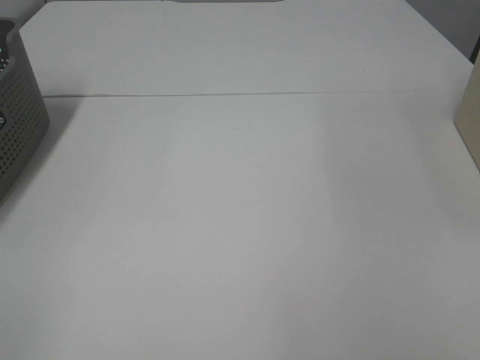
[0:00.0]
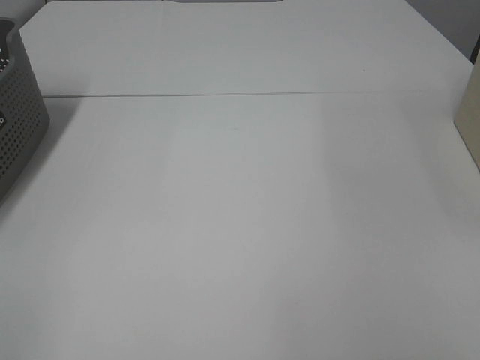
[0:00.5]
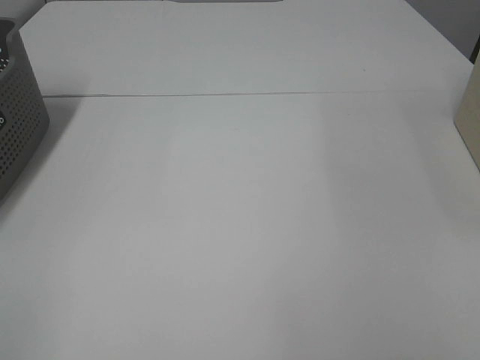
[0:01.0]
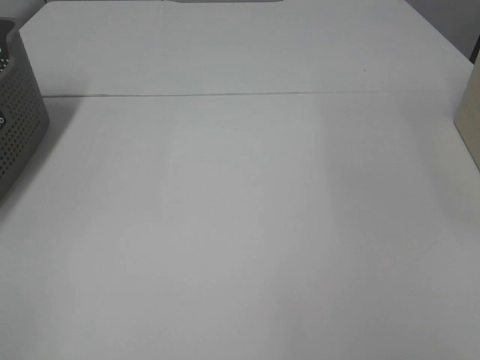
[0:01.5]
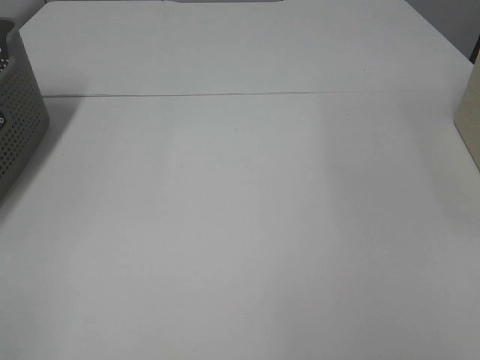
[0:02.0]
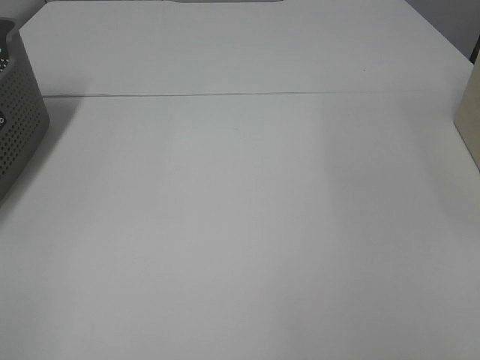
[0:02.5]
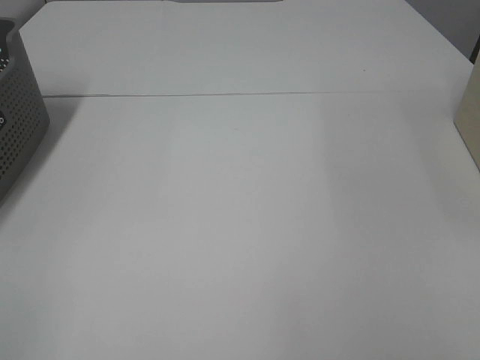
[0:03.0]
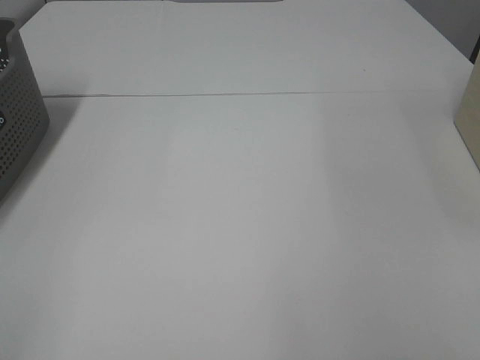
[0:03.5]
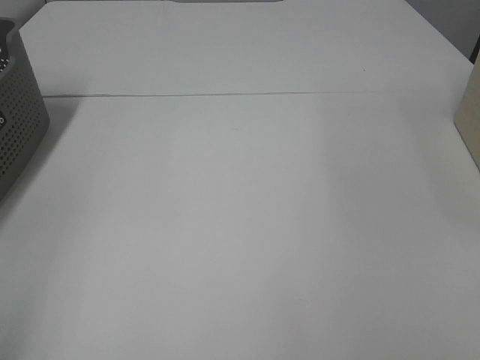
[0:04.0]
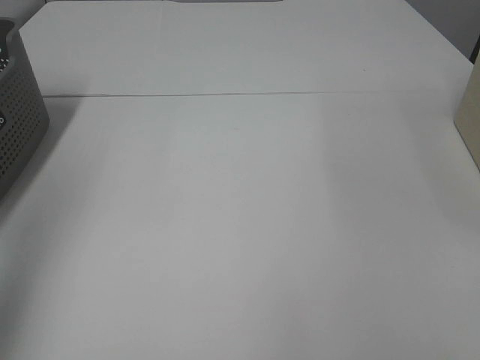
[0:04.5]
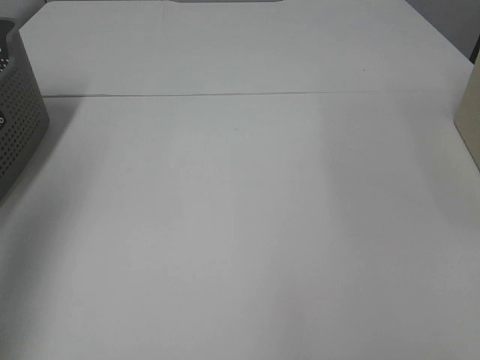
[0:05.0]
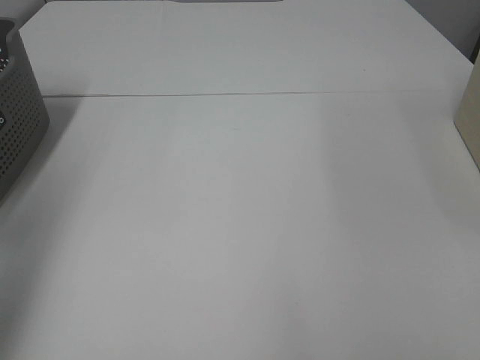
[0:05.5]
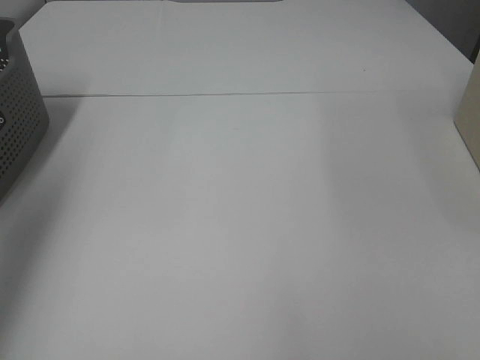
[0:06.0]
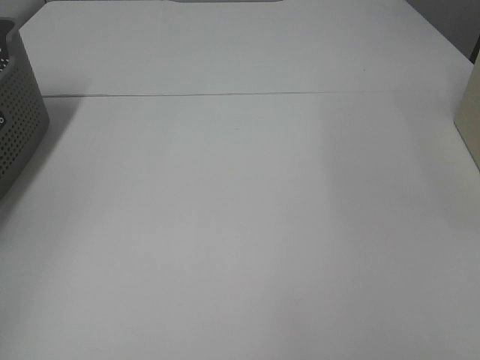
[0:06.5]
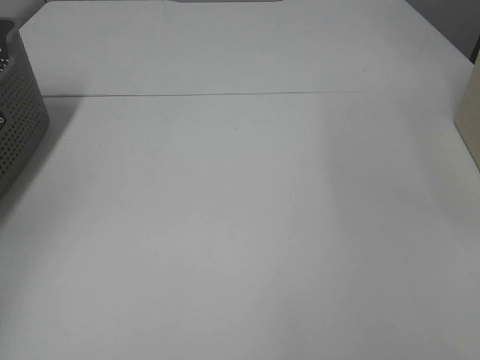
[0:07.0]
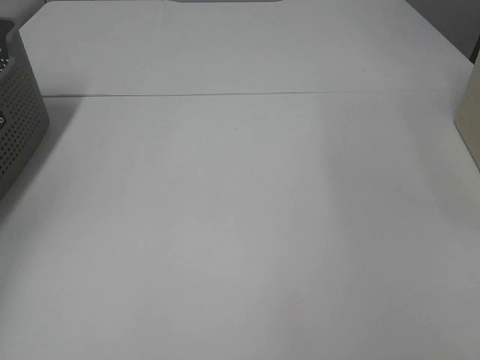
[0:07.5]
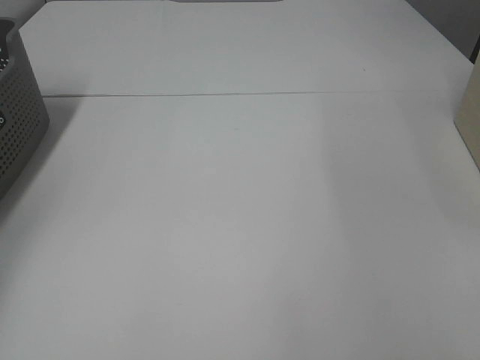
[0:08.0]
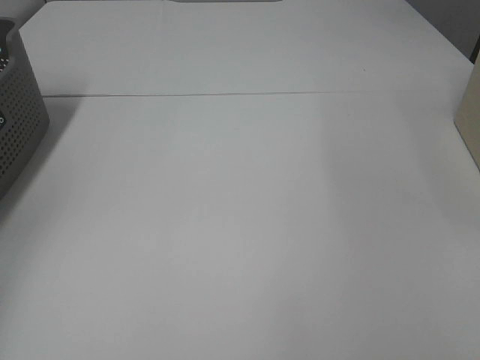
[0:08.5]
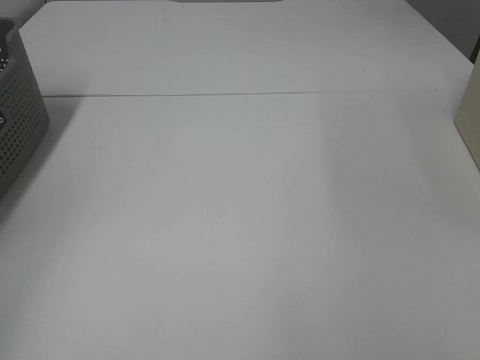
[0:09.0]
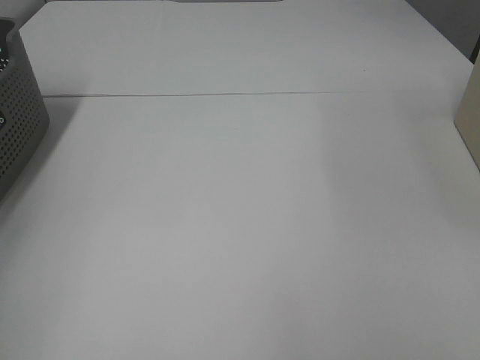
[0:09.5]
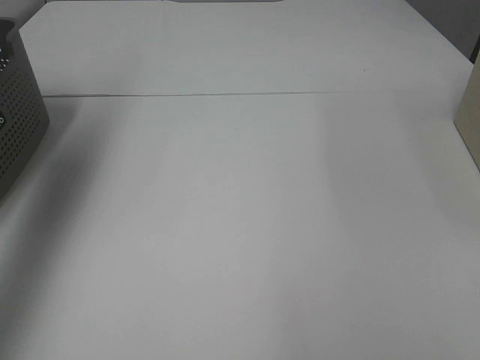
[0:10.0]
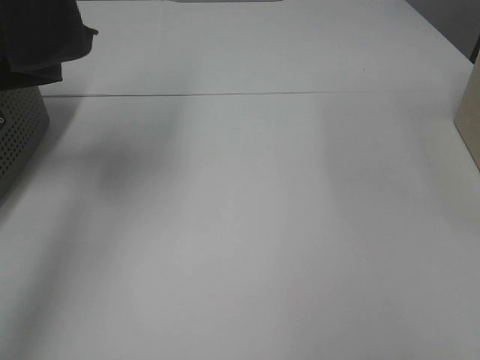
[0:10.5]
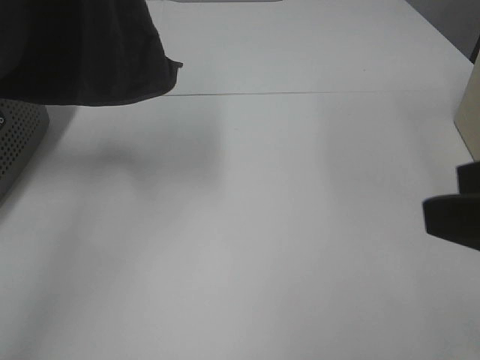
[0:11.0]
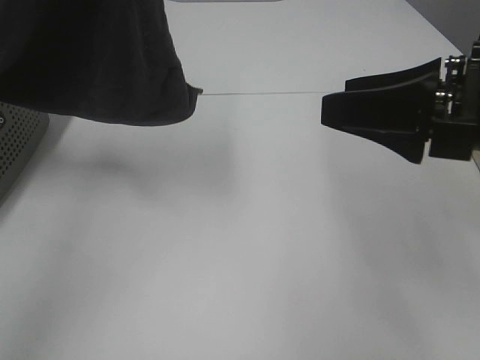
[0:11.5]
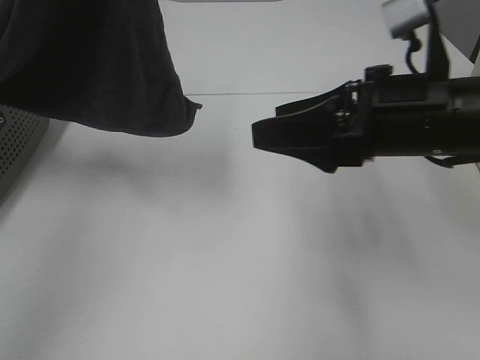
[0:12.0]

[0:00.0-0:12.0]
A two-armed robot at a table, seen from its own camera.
Task of the whole recording: Remove the towel and place it.
0:00.0 to 0:02.0: Both grippers stay about where they are.
0:04.0 to 0:06.0: The left gripper goes some 25 cm forward.
0:06.0 to 0:08.0: The left gripper is displaced downward, to the left and forward by about 20 cm.
0:08.0 to 0:10.0: The left gripper shifts about 40 cm upward and to the right, and closes.
0:10.0 to 0:12.0: The right gripper heads forward and to the left, covering about 25 cm. Meanwhile the left gripper is displaced to the right and downward by approximately 15 cm.

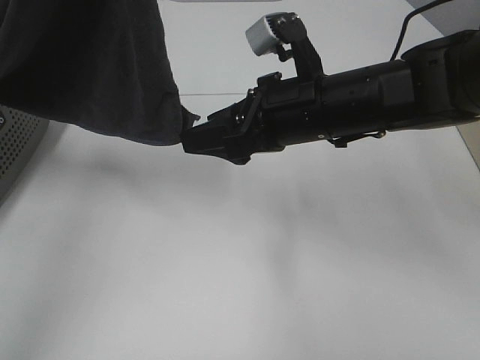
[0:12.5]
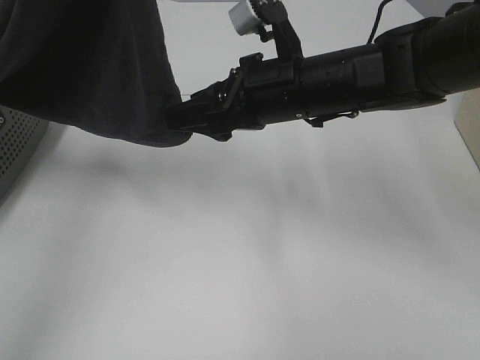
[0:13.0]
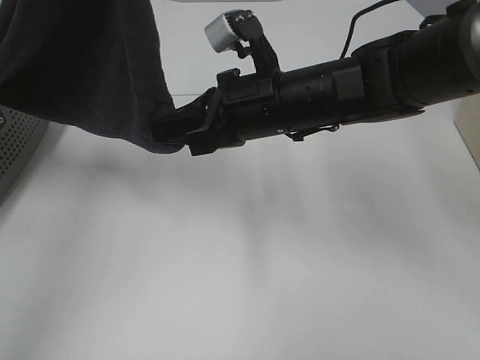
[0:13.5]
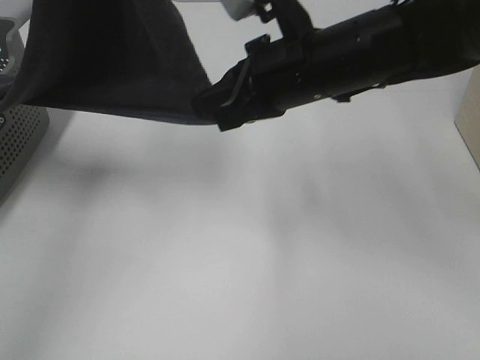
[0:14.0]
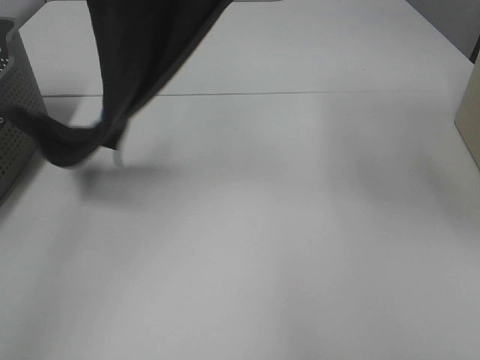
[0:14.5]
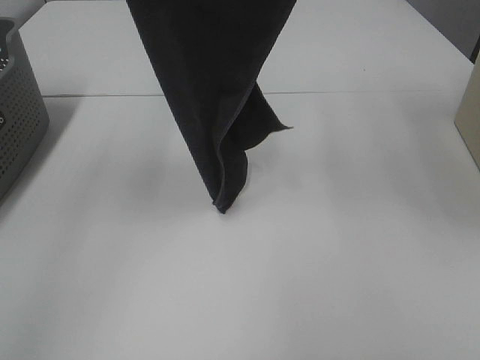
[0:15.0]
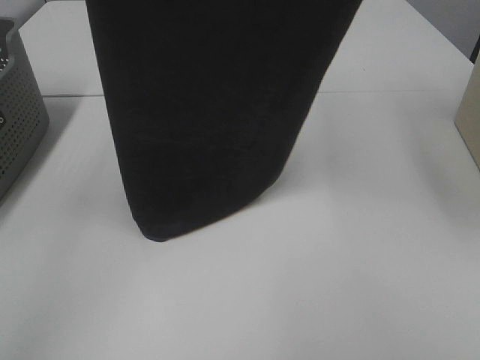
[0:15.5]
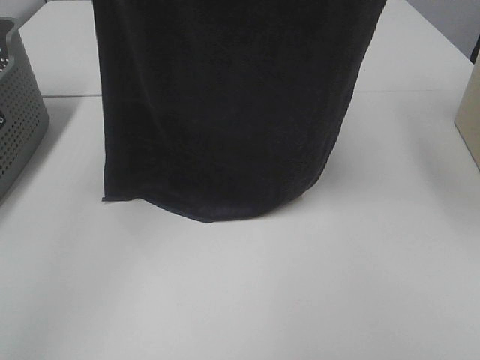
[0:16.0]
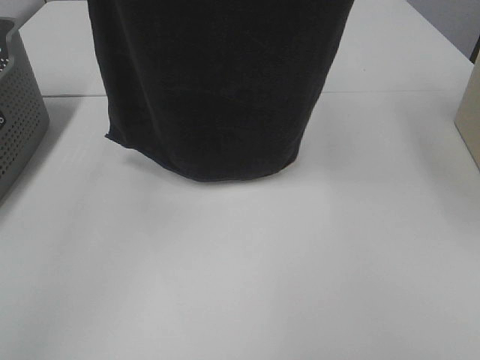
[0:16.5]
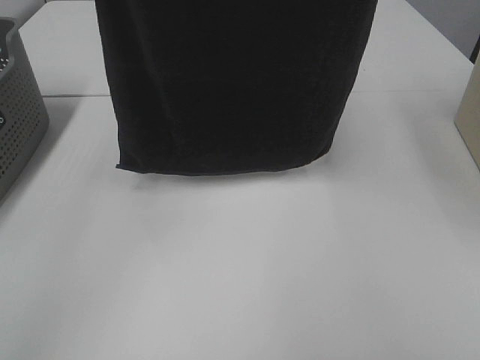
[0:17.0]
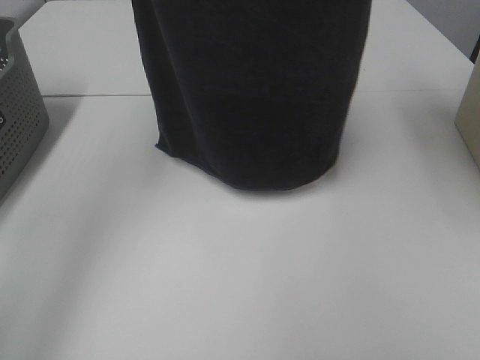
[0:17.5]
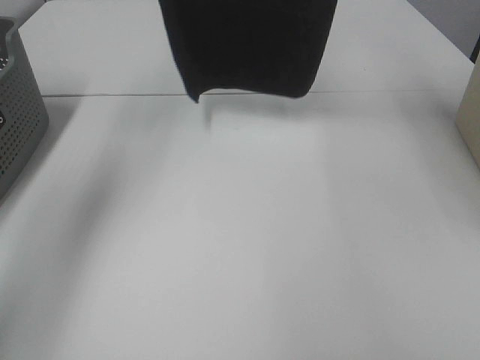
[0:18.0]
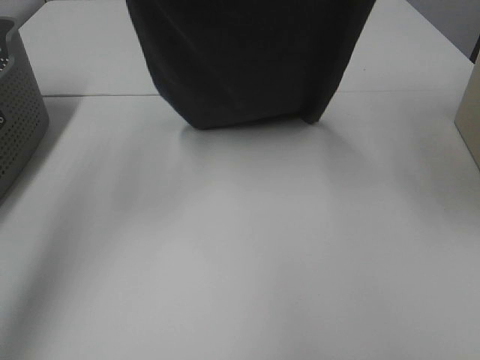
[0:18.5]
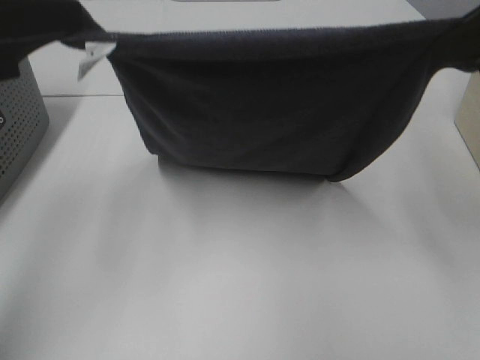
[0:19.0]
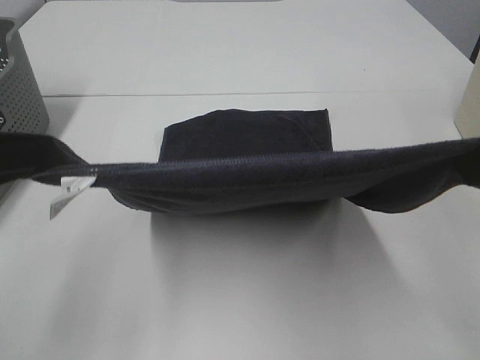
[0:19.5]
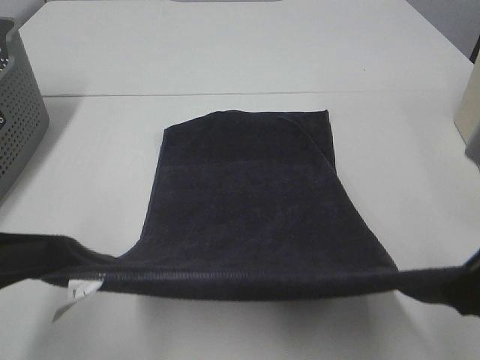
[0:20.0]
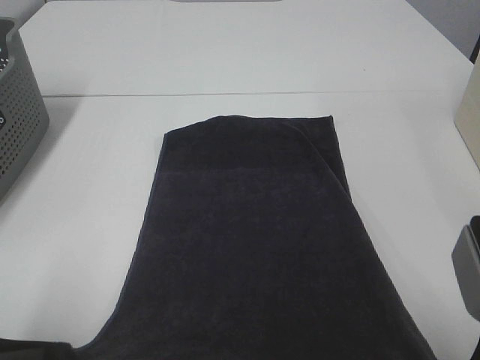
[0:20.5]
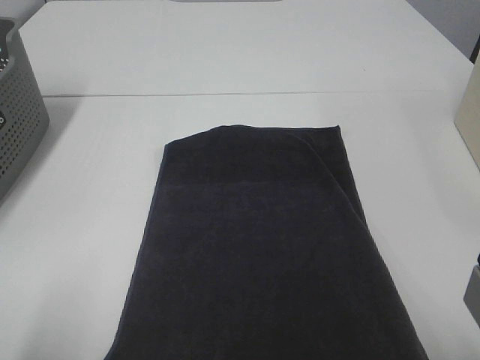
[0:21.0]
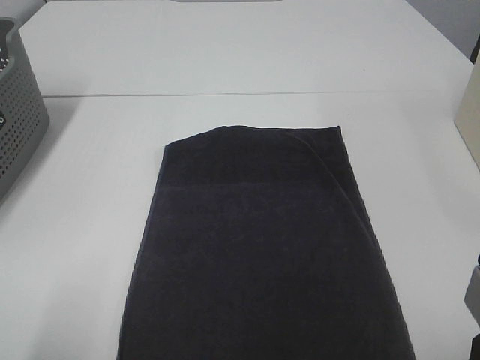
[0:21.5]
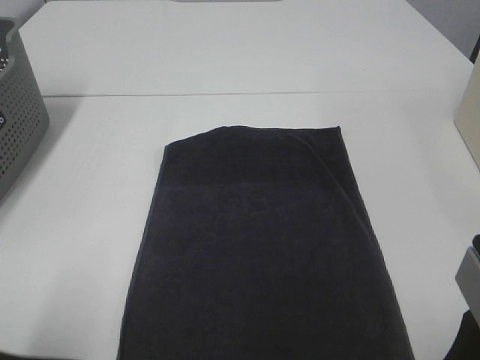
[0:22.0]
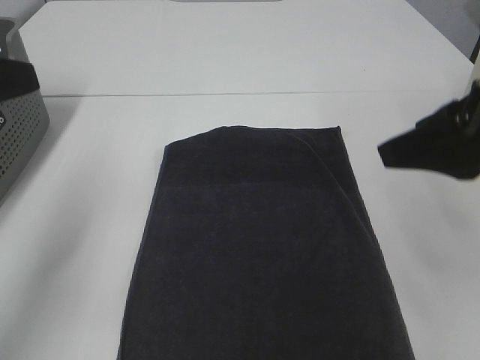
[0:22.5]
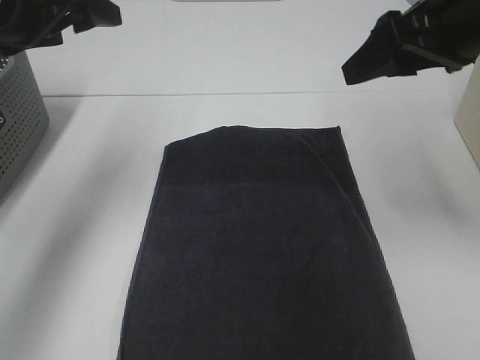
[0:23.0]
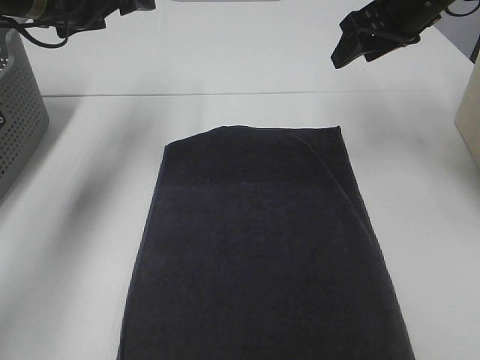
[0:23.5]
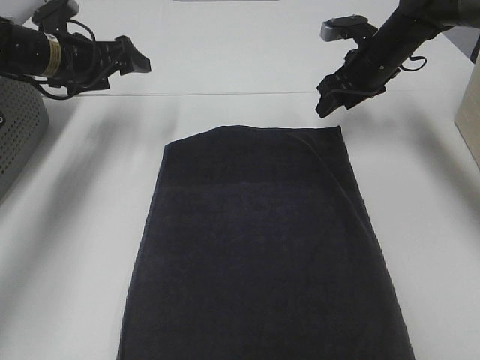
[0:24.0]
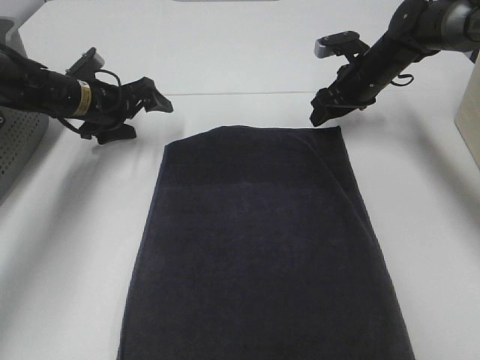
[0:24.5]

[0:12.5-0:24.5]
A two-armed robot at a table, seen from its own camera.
Task of the whole recording: Remove the towel and place it.
Step, 0:13.0 to 0:17.0: Left hand: spread the grey towel flat on the table.
Step, 0:13.0 to 0:17.0: Right hand: spread the grey towel flat on the table.
0:12.5 to 0:14.5: The left gripper shifts some 5 cm upward. The right gripper heads upward, covering approximately 20 cm, and closes.
0:14.5 to 0:16.5: The right gripper goes approximately 15 cm upward.
0:16.5 to 0:18.5: The left gripper goes approximately 15 cm downward; the right gripper moves downward, about 10 cm.
0:18.5 to 0:20.5: The right gripper travels downward and backward by roughly 35 cm. The left gripper moves backward and downward, roughly 30 cm.
0:20.5 to 0:22.5: The grippers both shift upward and forward by about 15 cm. The left gripper opens; the right gripper opens up.
0:22.5 to 0:24.5: The two grippers go roughly 35 cm forward and downward.

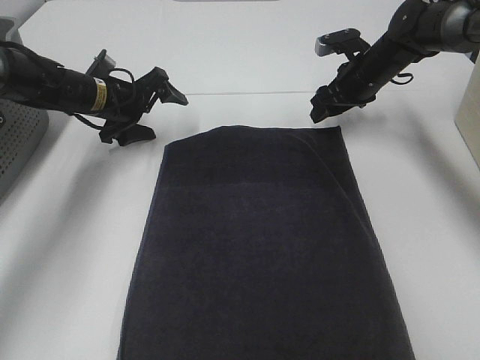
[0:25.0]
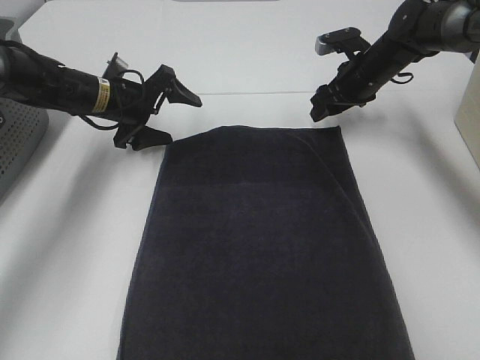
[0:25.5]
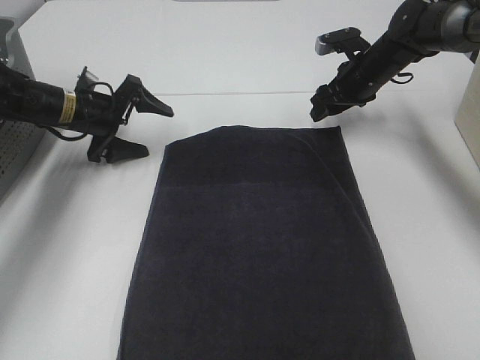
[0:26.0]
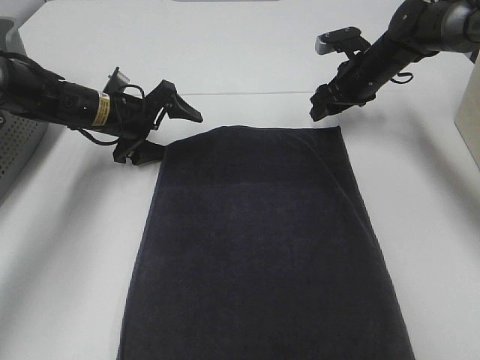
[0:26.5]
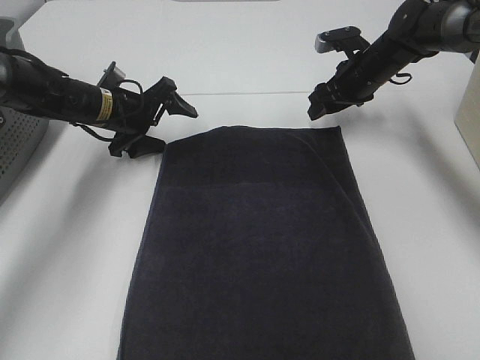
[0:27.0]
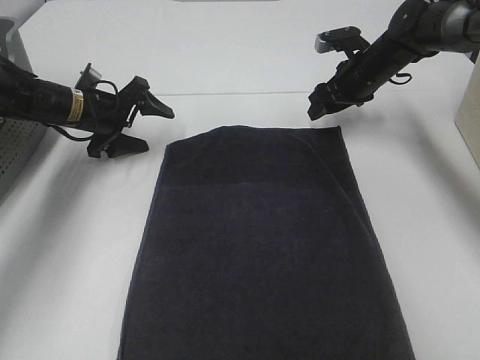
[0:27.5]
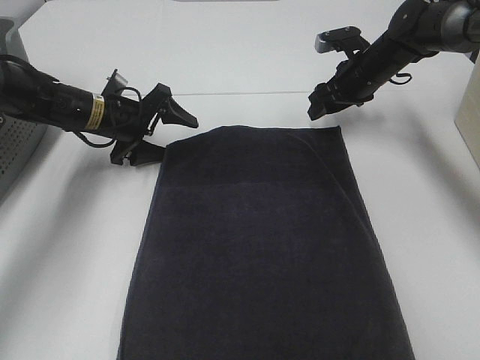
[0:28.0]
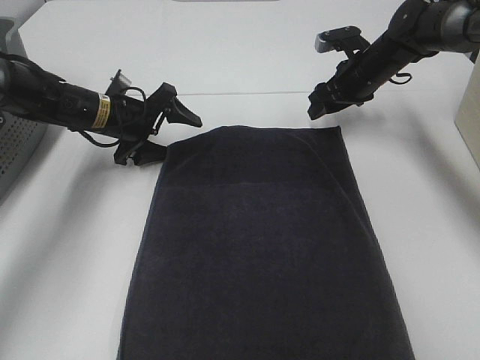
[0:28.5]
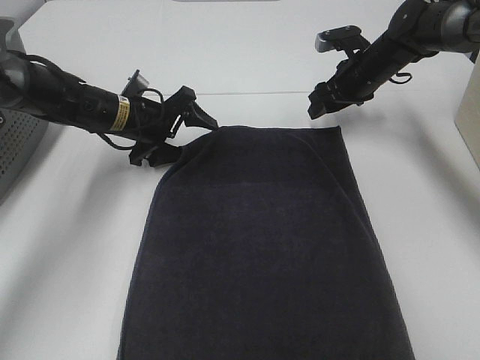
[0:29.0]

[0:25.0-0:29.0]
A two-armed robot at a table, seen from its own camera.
Task of the whole recording: Remove the towel and place it.
0:25.0 to 0:29.0: The grippers move only a little.
